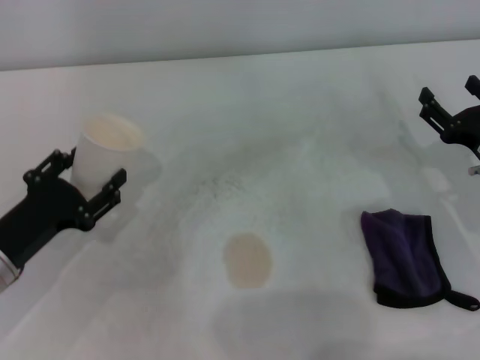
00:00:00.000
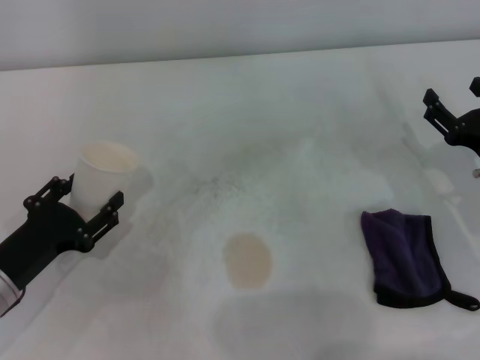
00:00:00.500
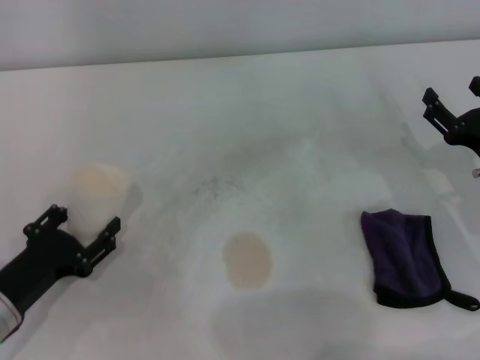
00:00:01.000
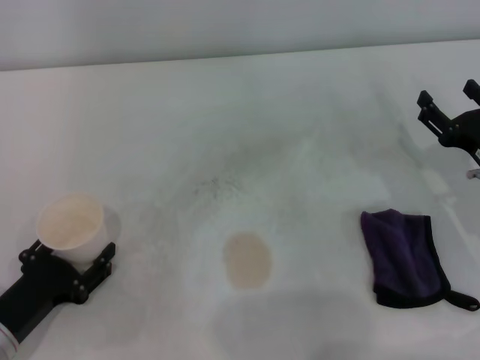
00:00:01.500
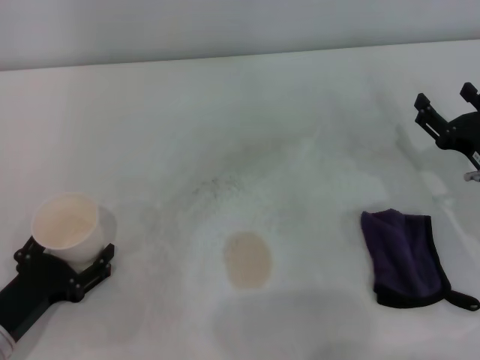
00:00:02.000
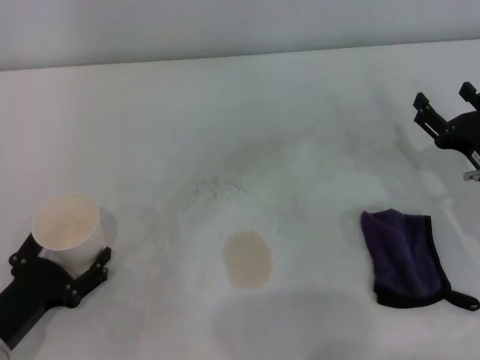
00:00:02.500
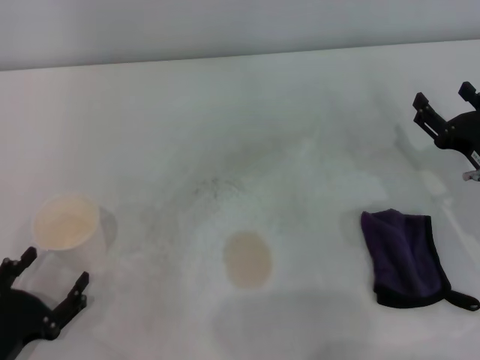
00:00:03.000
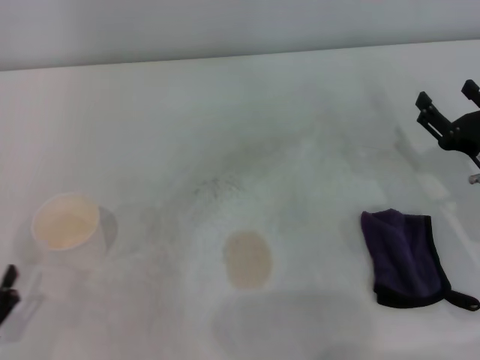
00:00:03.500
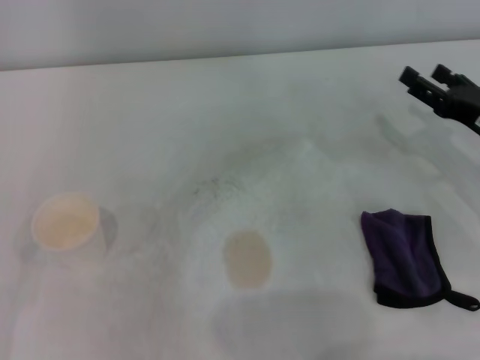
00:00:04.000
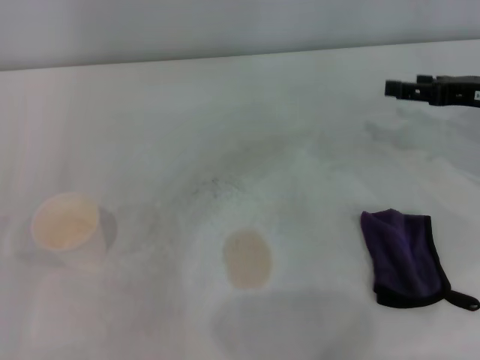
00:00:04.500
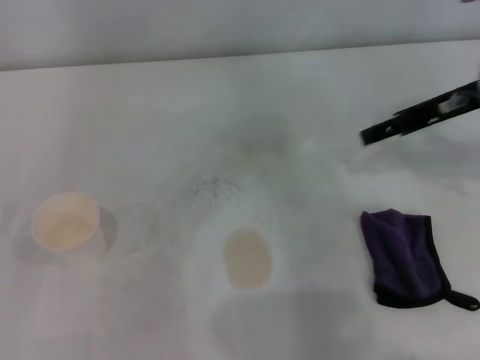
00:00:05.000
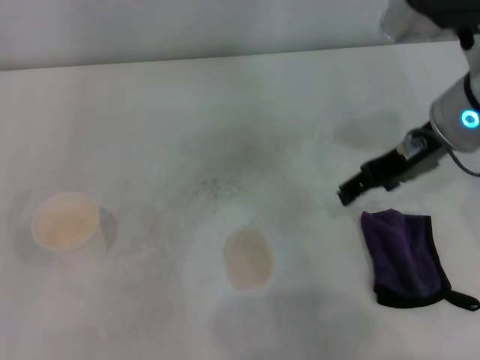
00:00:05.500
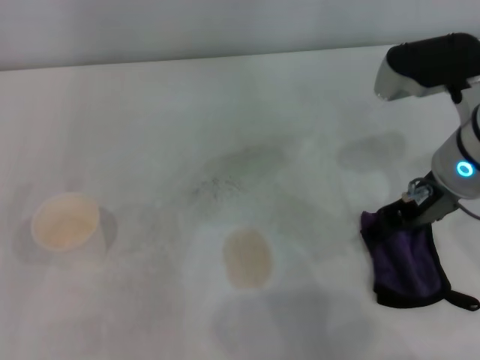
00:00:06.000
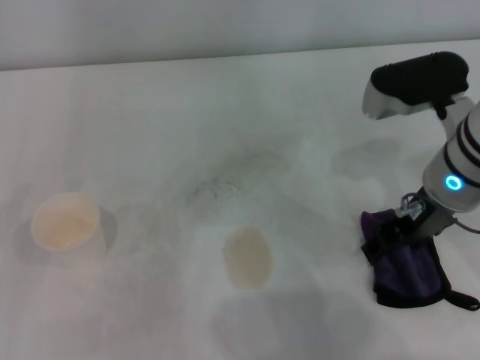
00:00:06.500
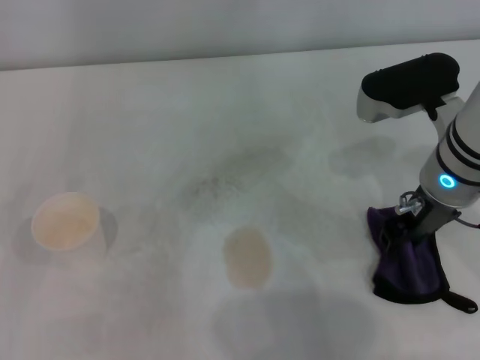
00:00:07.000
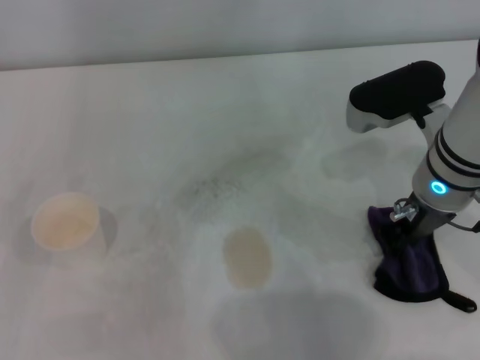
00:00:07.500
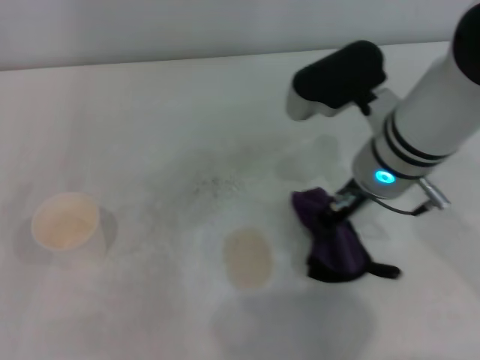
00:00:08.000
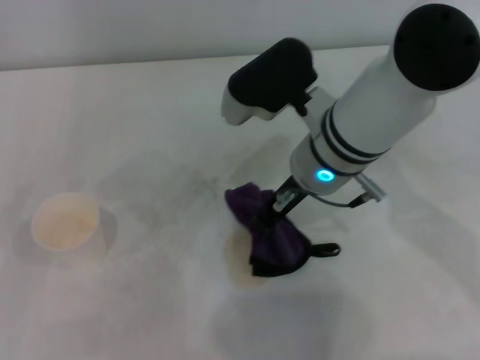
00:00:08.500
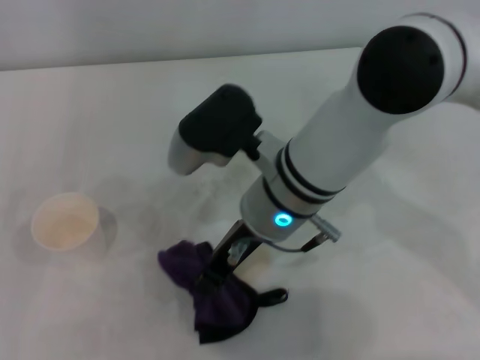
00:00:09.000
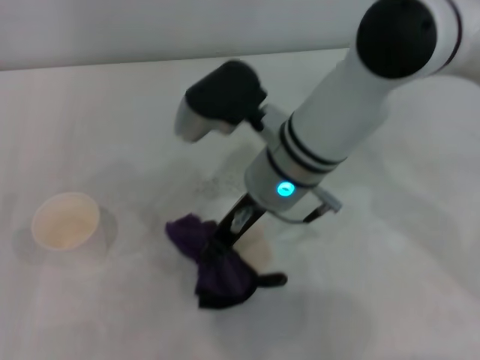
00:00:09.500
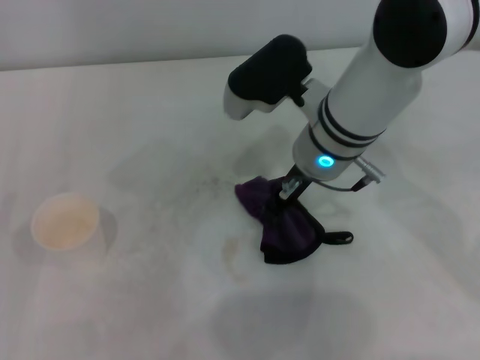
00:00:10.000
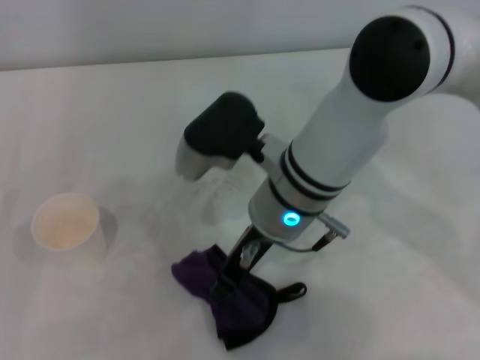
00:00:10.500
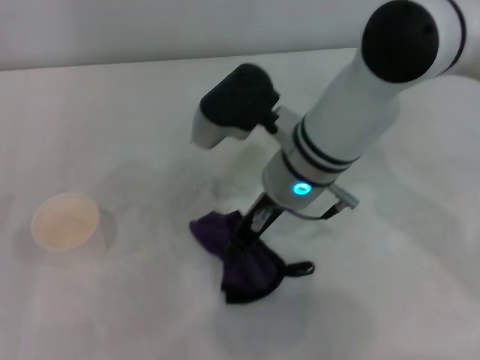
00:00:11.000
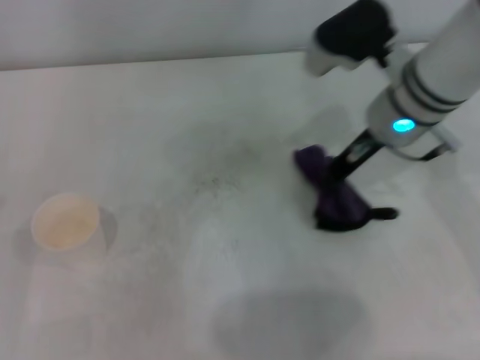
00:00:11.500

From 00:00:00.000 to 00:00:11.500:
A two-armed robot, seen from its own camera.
Step, from 00:00:00.000 to 00:00:02.000: Stand the paper cup upright with the left gripper.
Step, from 00:00:02.500 to 00:00:07.000: Grasp the rag with the right gripper.
From 00:00:00.000 to 00:00:02.000: The left gripper is displaced backward and downward by some 10 cm.
From 00:00:02.000 to 00:00:04.000: The left gripper travels backward and to the left by roughly 10 cm, and opens its fingers.
From 00:00:04.000 to 00:00:06.000: The right gripper heads to the left and upward, covering some 15 cm.
From 00:00:06.000 to 00:00:07.500: The right gripper closes its fingers.
From 00:00:07.500 to 00:00:09.500: The right gripper heads to the left, covering approximately 15 cm.
From 00:00:09.500 to 00:00:11.500: The right gripper swings left and right, roughly 10 cm each way, with 2 reversals.

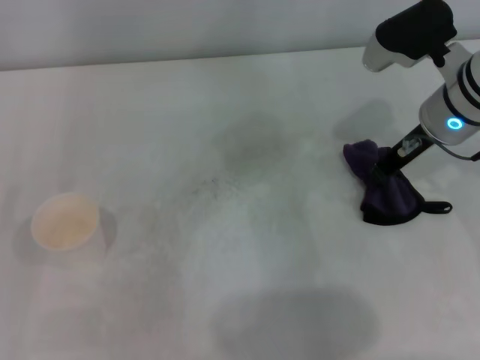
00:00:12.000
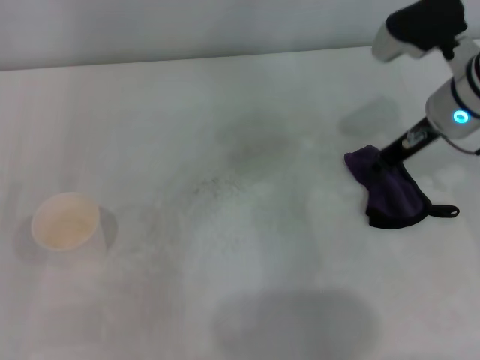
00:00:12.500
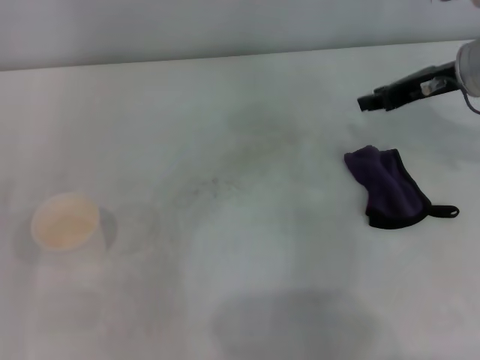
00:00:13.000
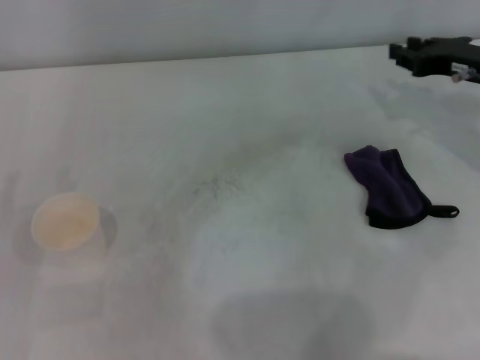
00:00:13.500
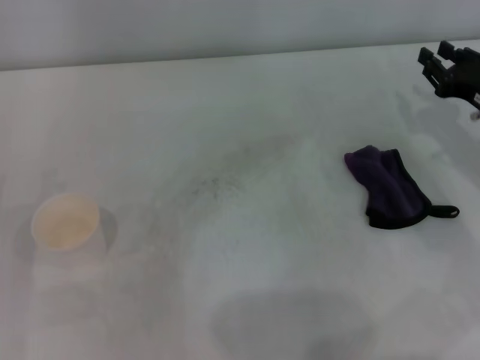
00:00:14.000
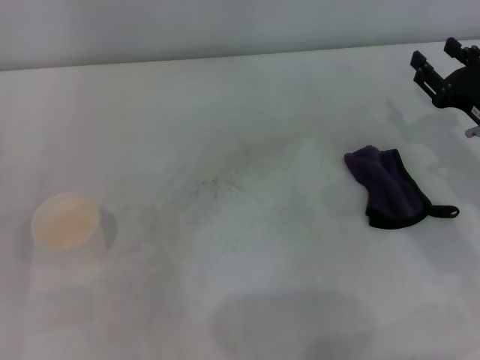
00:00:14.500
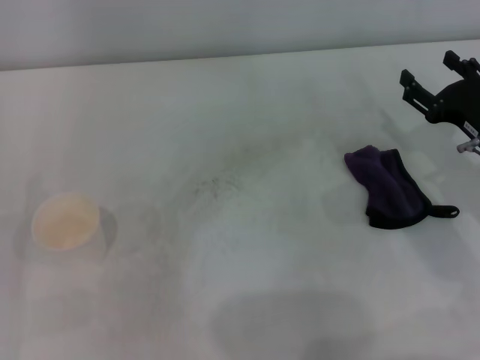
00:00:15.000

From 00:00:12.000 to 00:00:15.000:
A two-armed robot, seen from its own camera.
Step, from 00:00:12.000 to 00:00:12.500: Place the rag on the table with the right gripper.
From 00:00:12.000 to 00:00:13.500: The right gripper heads to the right, covering some 10 cm.
From 00:00:13.500 to 00:00:15.000: The right gripper is displaced backward and downward by some 10 cm, and opens its fingers.

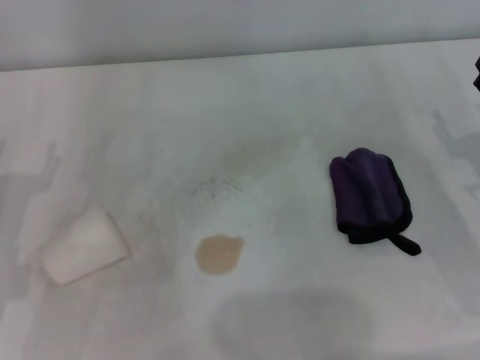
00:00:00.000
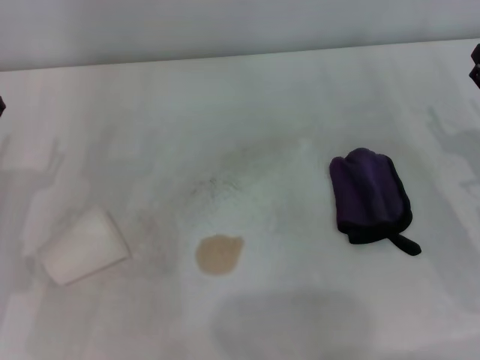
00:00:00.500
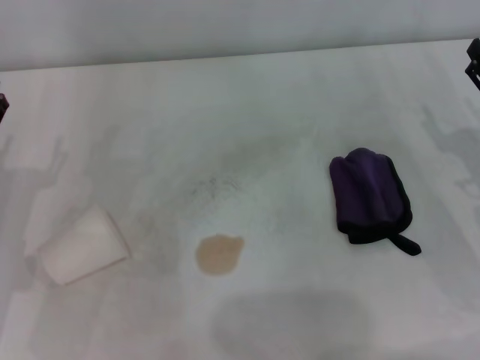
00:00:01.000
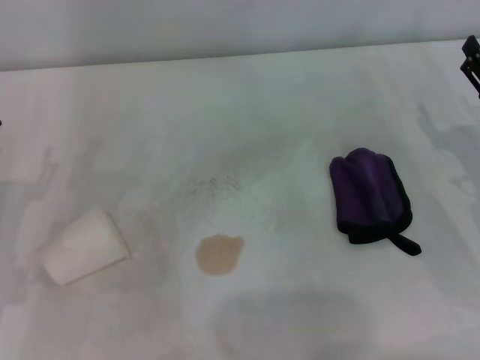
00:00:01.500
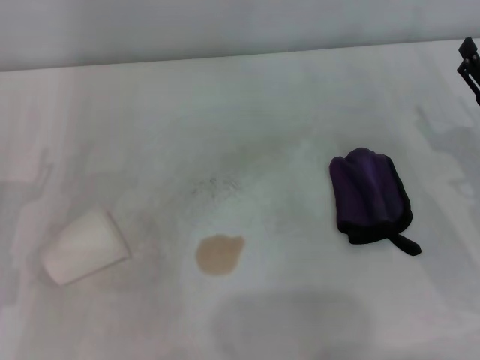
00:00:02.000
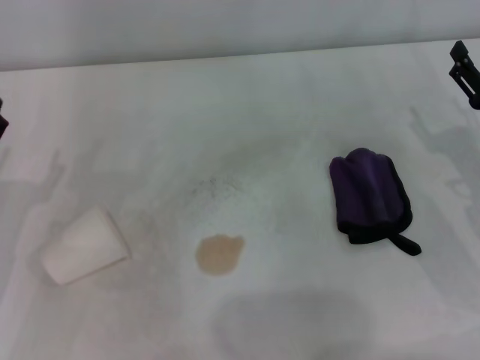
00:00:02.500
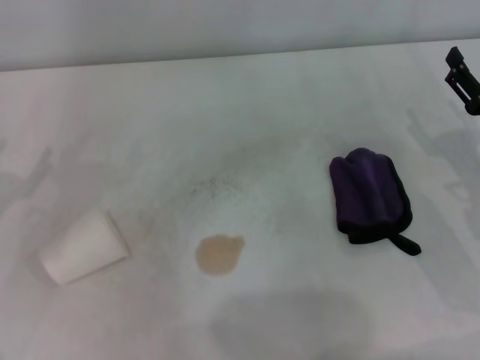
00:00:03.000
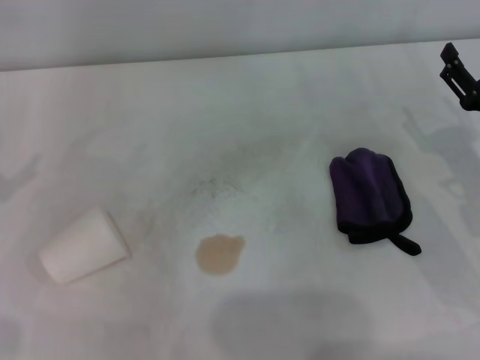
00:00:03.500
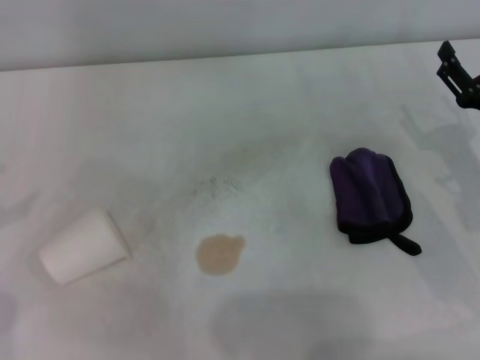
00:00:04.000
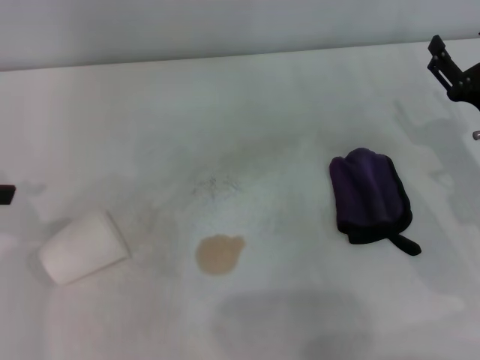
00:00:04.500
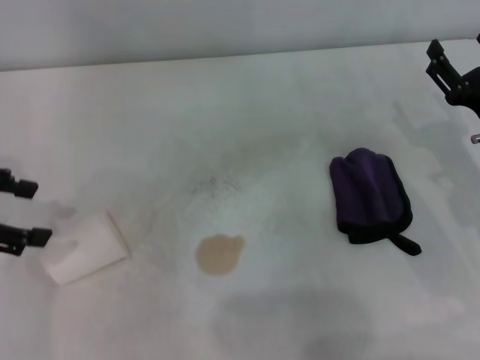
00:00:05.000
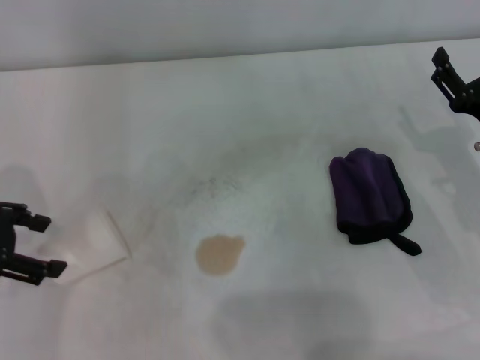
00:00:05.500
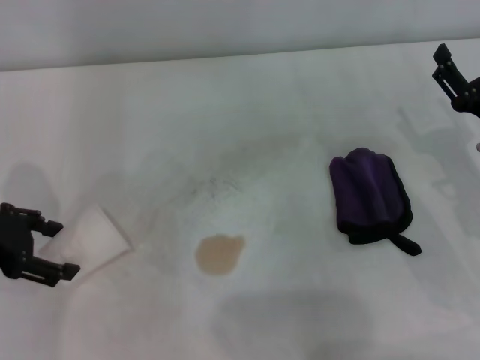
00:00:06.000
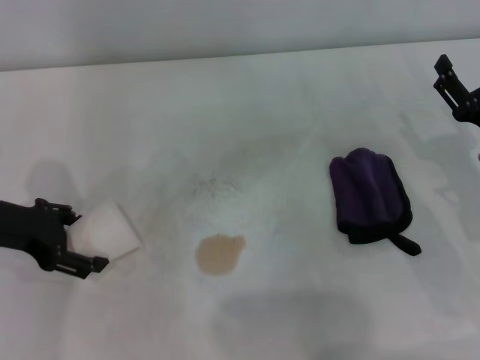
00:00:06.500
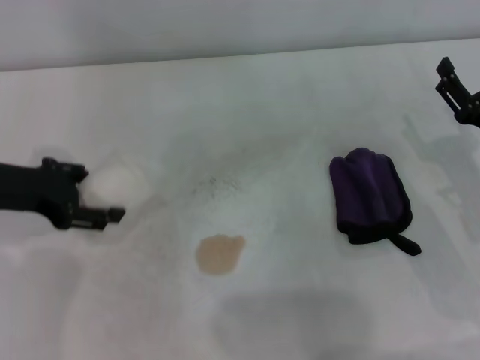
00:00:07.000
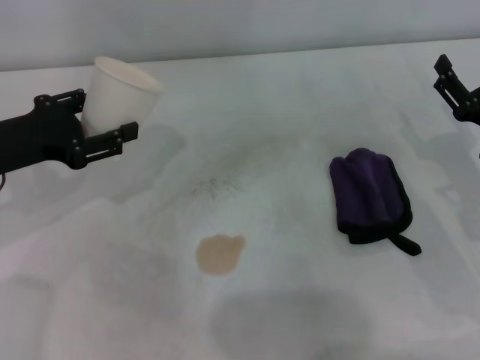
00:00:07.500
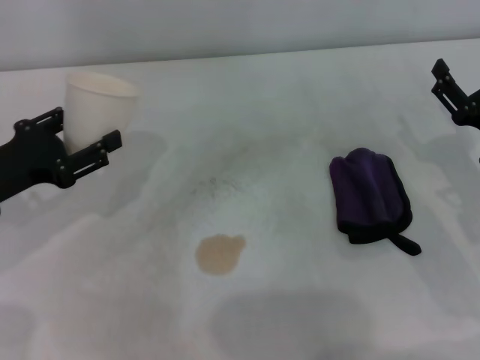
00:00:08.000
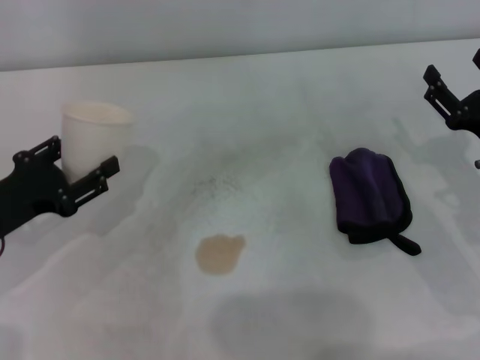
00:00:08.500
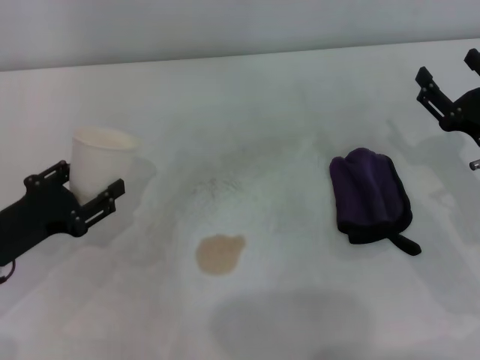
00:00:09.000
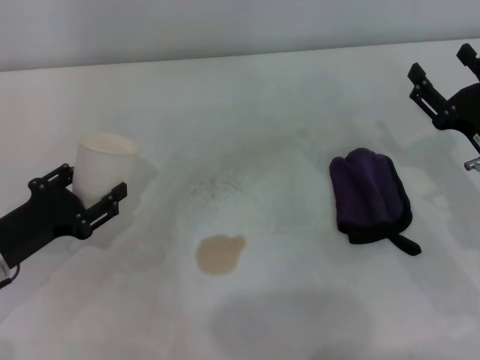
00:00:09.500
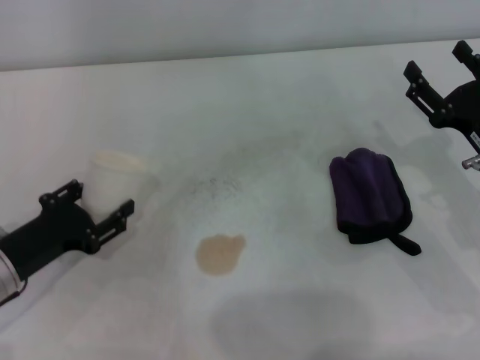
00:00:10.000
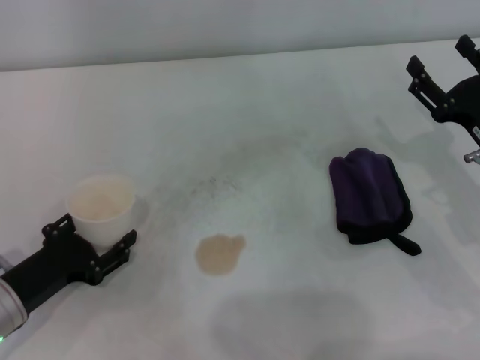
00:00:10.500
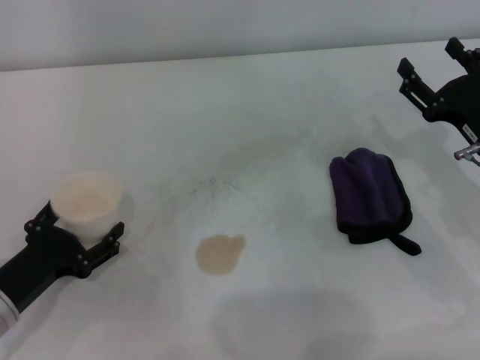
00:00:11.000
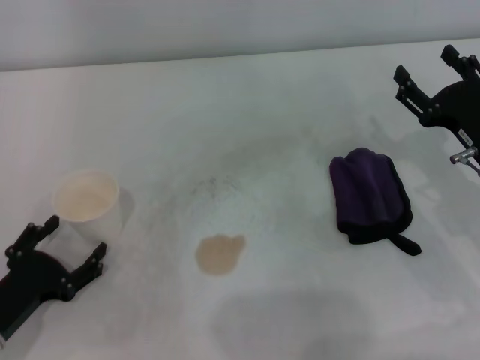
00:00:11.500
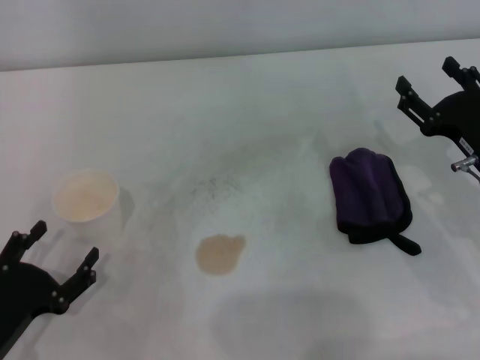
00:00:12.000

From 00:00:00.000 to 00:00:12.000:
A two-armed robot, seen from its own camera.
Step, from 00:00:00.000 to 00:00:06.000: Grasp the paper cup with the left gripper.
Step, from 00:00:06.500 to 00:00:11.000: Stand the paper cup upright with the left gripper.
From 00:00:04.000 to 00:00:06.000: The left gripper heads to the right and downward, covering roughly 10 cm.
From 00:00:06.000 to 00:00:08.000: The left gripper closes.
From 00:00:08.000 to 00:00:10.000: The left gripper is displaced downward by about 5 cm.
From 00:00:10.000 to 00:00:12.000: The left gripper is displaced backward by roughly 10 cm, and opens up.
